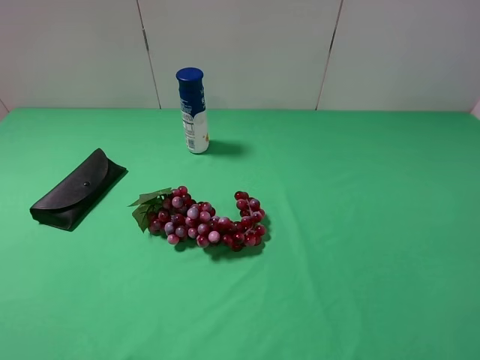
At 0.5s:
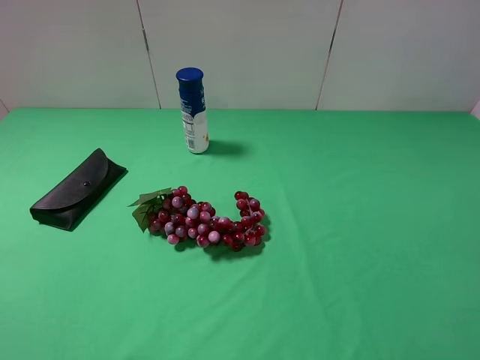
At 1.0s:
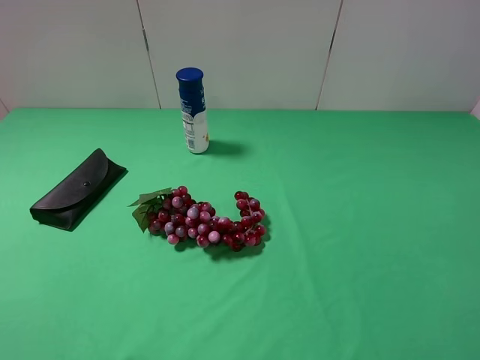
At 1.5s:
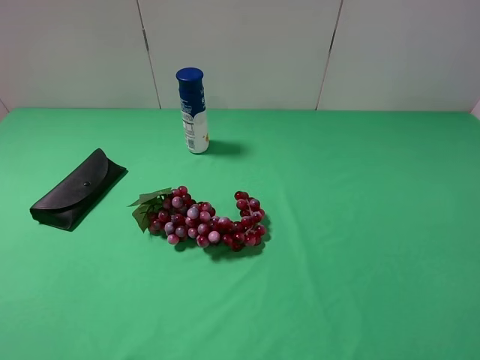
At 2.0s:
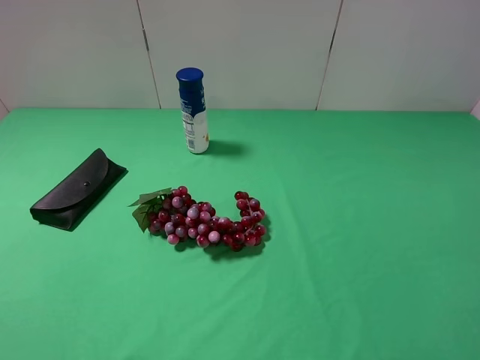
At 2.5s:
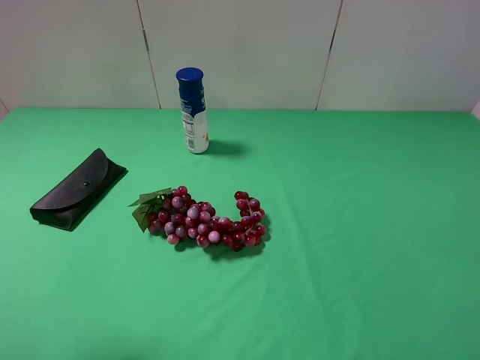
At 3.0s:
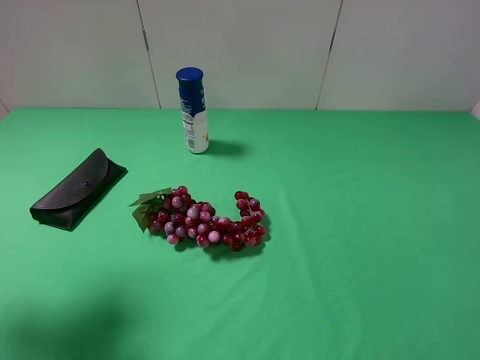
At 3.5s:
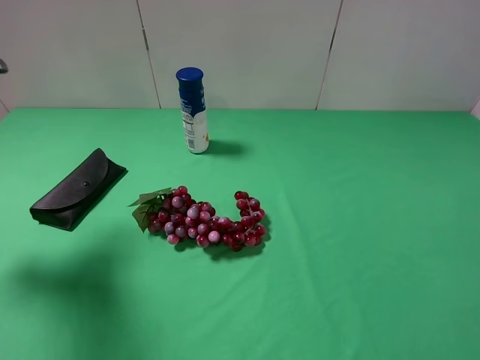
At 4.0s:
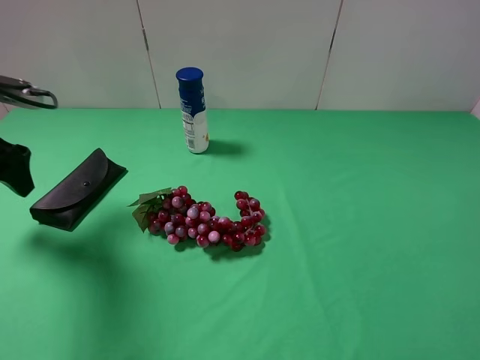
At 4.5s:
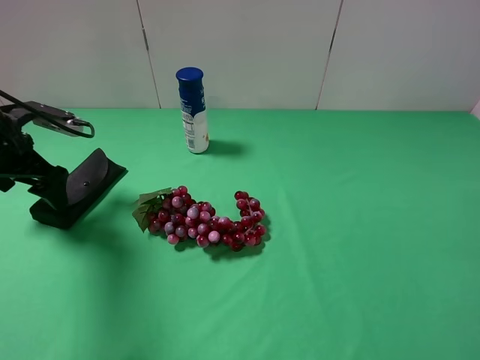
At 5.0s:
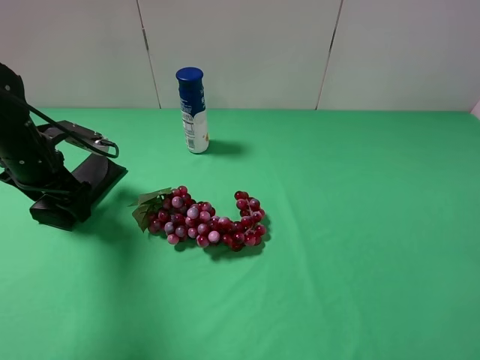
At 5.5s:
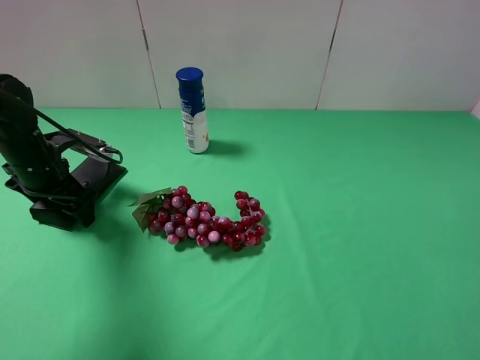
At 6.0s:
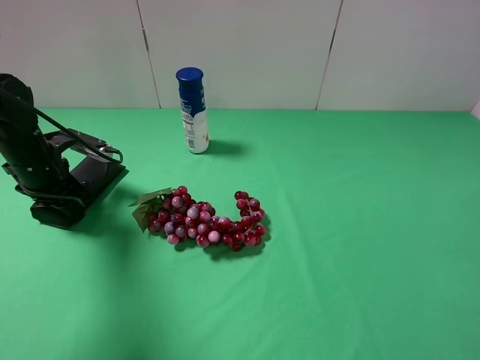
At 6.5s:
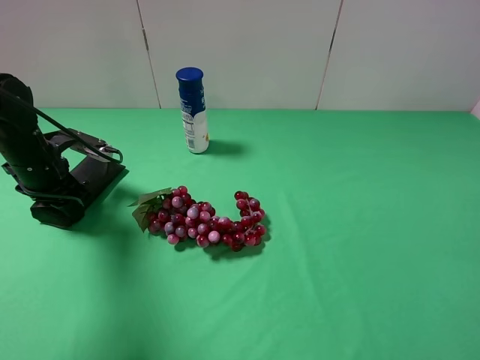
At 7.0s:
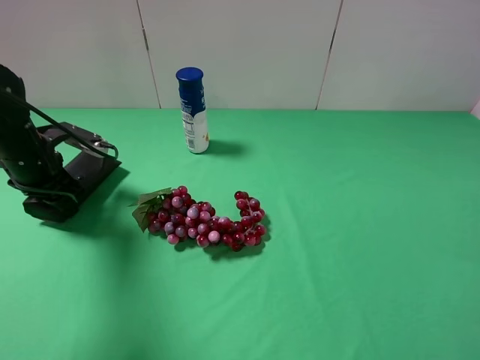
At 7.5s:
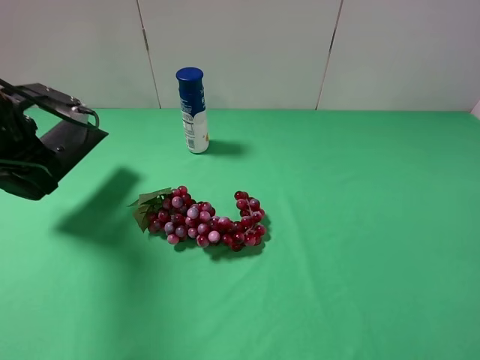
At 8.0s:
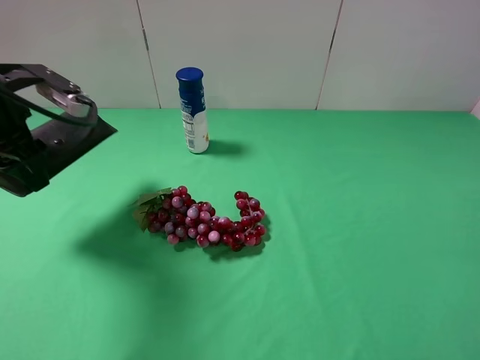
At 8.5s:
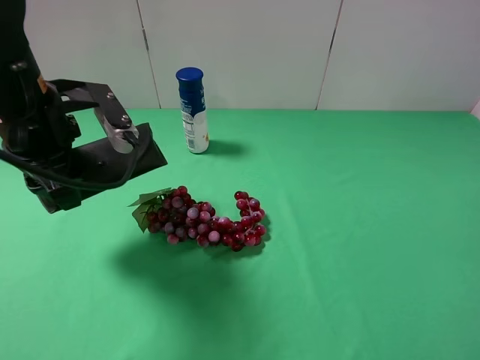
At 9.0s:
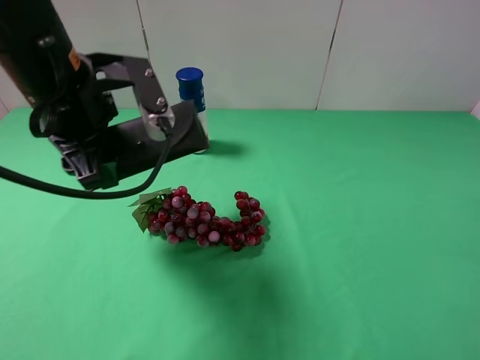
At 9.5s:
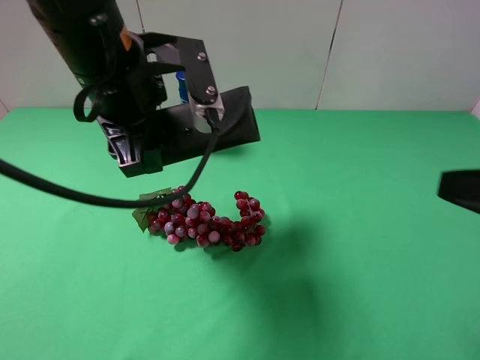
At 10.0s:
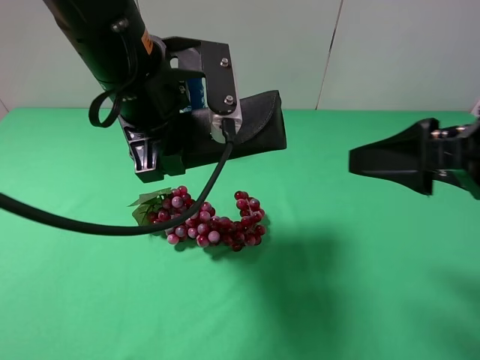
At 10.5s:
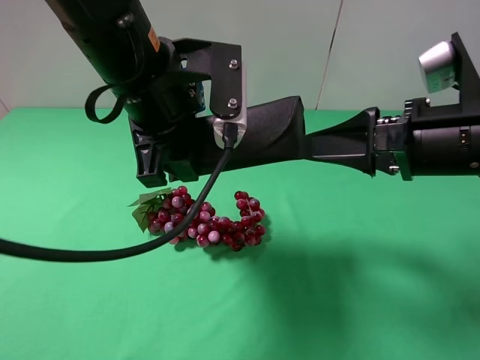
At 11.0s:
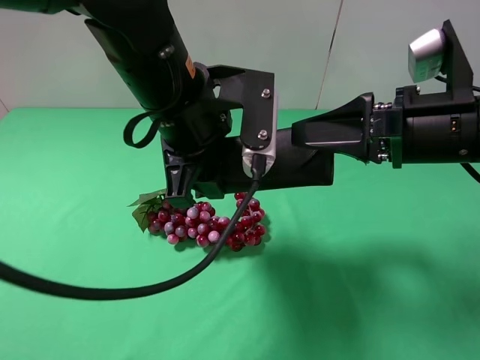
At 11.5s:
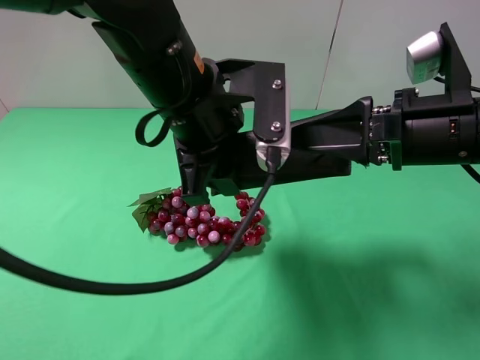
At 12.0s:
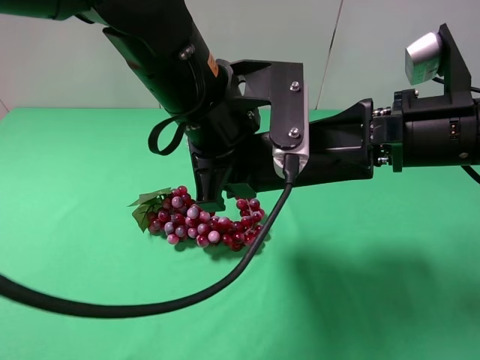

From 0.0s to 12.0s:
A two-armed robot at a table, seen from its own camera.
Task of the whole recording: use the left gripper to pick up the item and transfer it from the left gripper to the right gripper.
Step, from 0.0s to 6.0s: Use the left gripper to grab the eyeglass case on the left side of the table.
From 0.0s to 2.0s: The two grippers keep their place.
From 2.0s to 4.0s: The left gripper shifts some 30 cm forward.
From 4.0s to 6.0s: The left gripper shifts about 10 cm downward, and closes its fingers.
From 6.0s to 8.0s: The left gripper moves upward, about 15 cm.
From 8.0s to 10.0s: The left gripper is displaced to the right by about 20 cm; the right gripper heads forward, covering roughly 15 cm.
From 10.0s to 12.0s: The left gripper moves to the right, some 5 cm. Meanwhile the right gripper shifts approximately 5 cm forward.

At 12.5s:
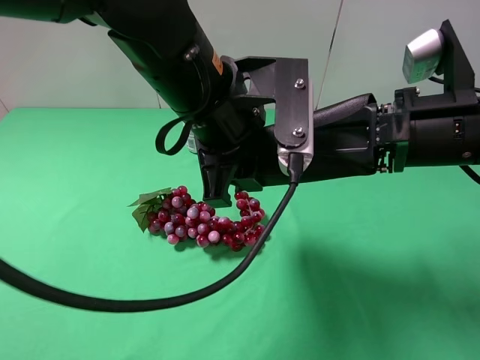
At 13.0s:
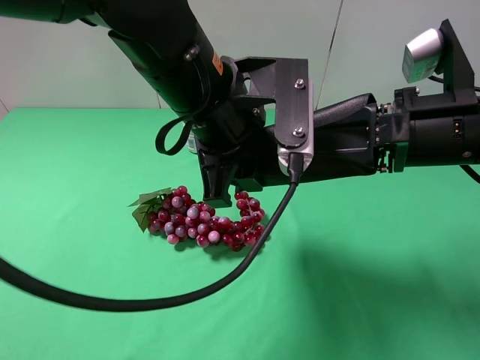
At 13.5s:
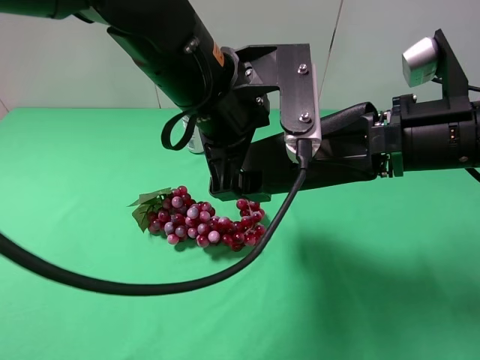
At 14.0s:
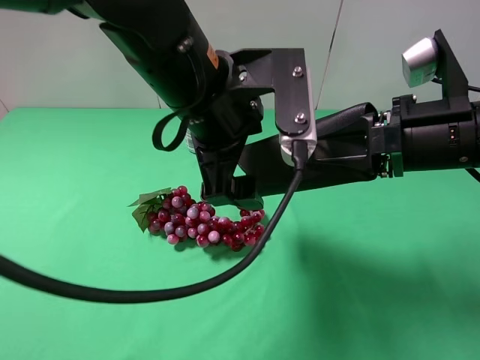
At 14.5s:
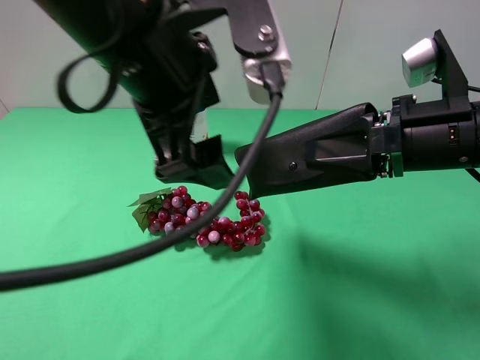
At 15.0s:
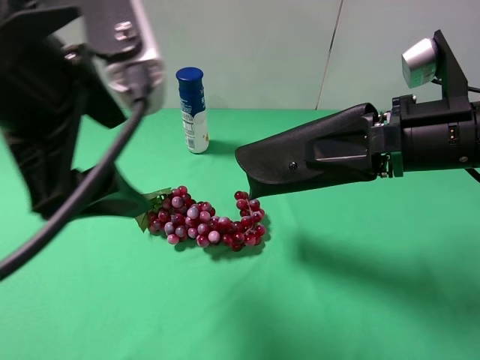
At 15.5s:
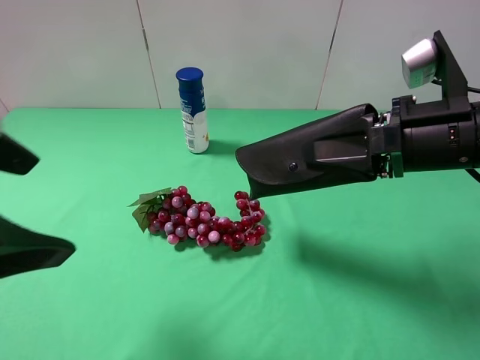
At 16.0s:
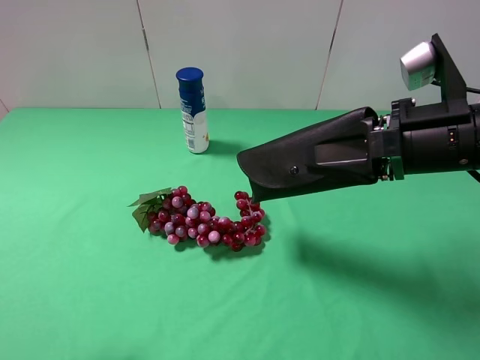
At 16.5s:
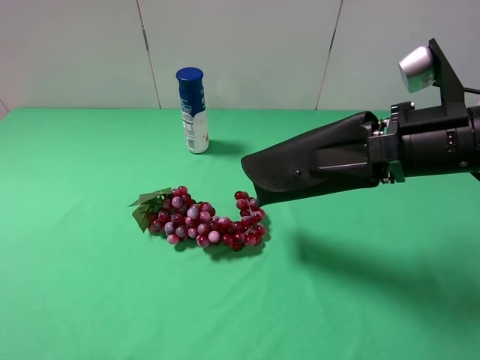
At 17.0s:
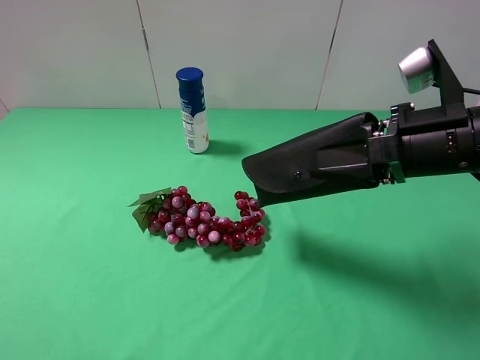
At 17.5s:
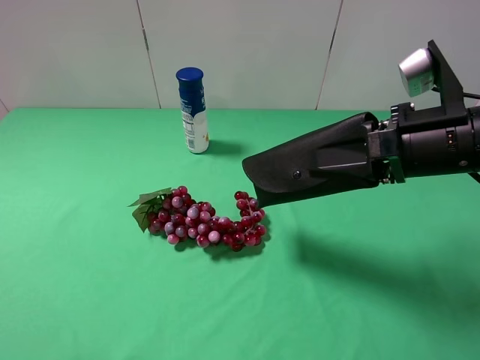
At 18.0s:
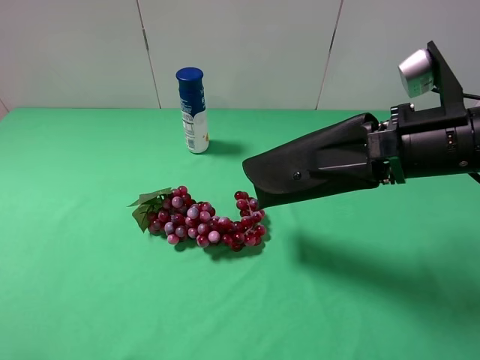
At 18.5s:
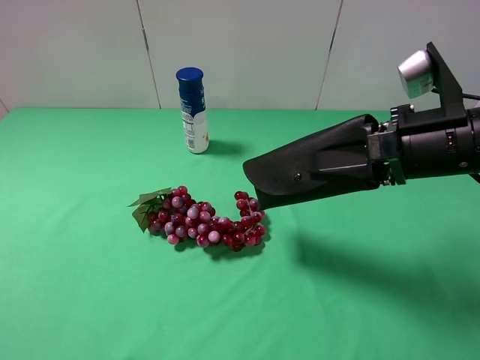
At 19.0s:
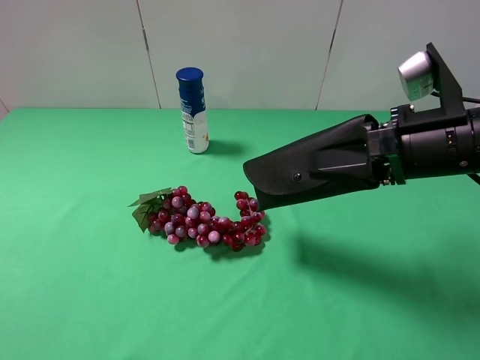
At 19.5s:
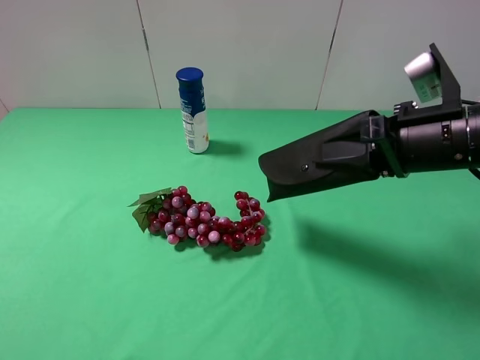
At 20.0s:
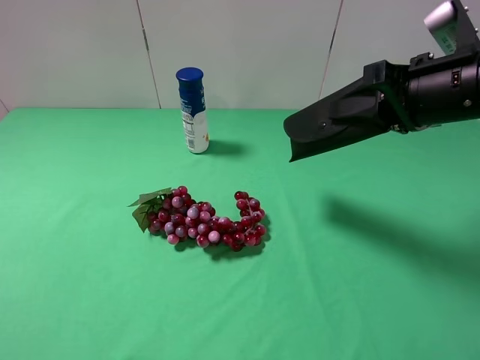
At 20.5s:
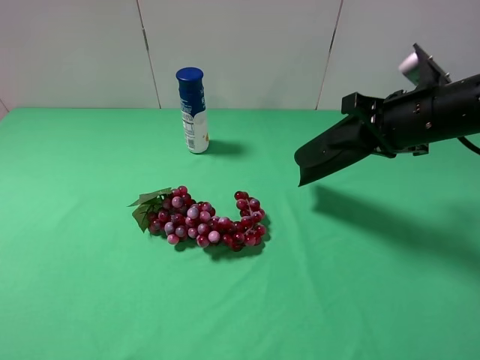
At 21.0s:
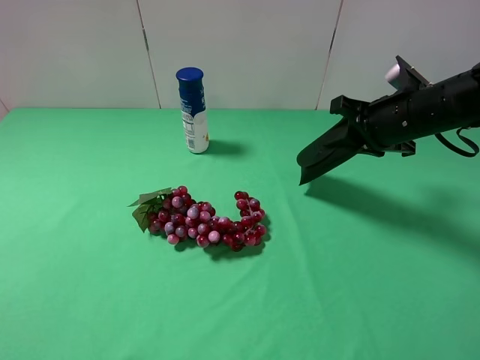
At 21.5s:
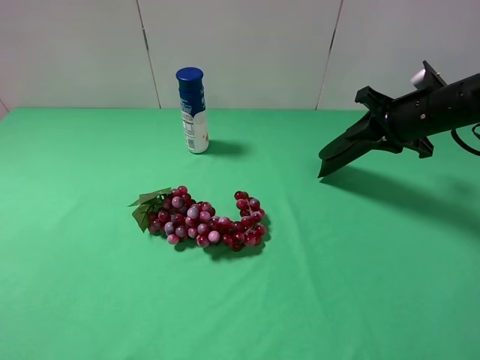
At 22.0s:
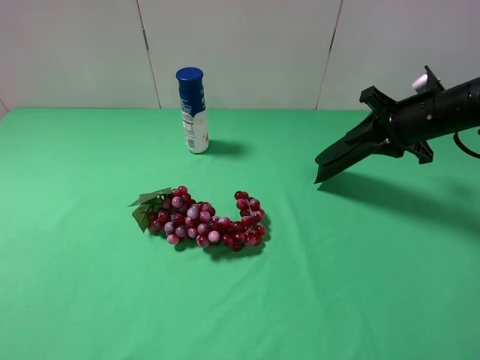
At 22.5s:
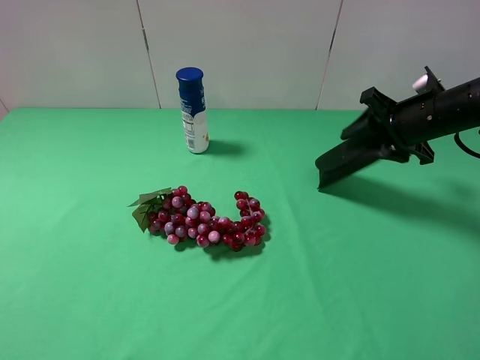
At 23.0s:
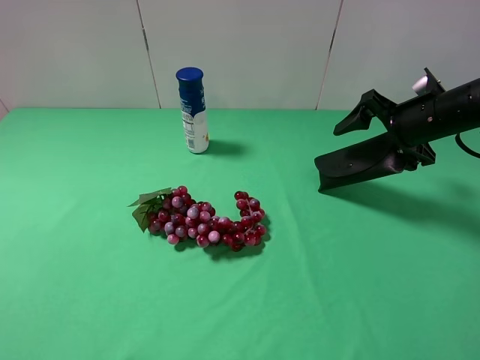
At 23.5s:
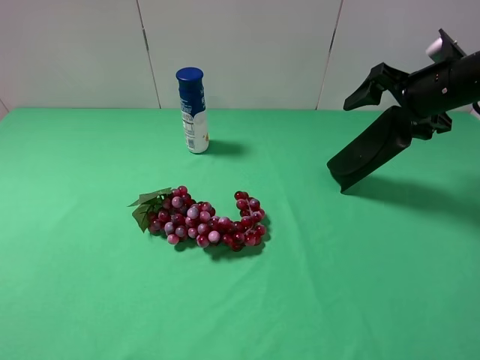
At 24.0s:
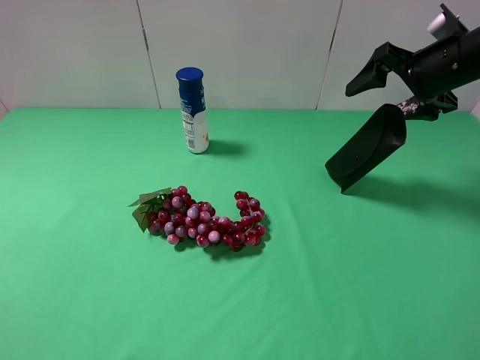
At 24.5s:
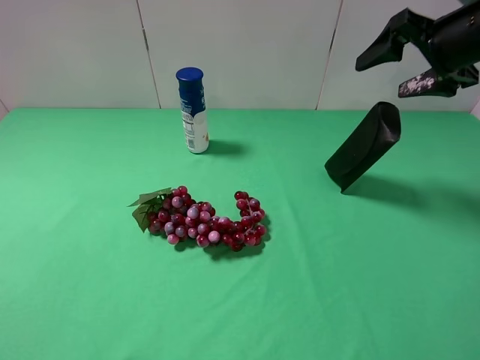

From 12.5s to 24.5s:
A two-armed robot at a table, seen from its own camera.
Task of the whole recording: use the left gripper to pick up the item and transfer it from the left gripper to the right gripper.
From 12.5s to 14.5s: The left gripper moves upward, roughly 5 cm, and opens up.
From 14.5s to 16.5s: The left gripper is displaced to the left and backward by some 30 cm.
From 18.5s to 20.5s: The right gripper shifts roughly 5 cm forward.
From 20.5s to 22.5s: The right gripper moves forward and to the right, roughly 10 cm, and opens.
From 22.5s to 24.5s: The right gripper travels upward by about 10 cm.

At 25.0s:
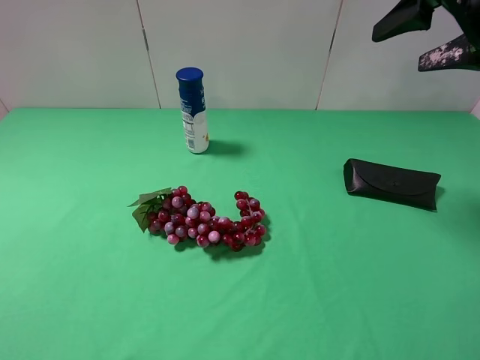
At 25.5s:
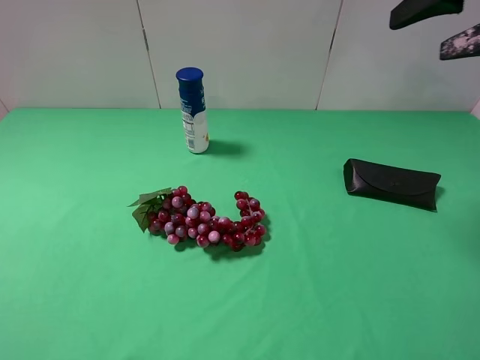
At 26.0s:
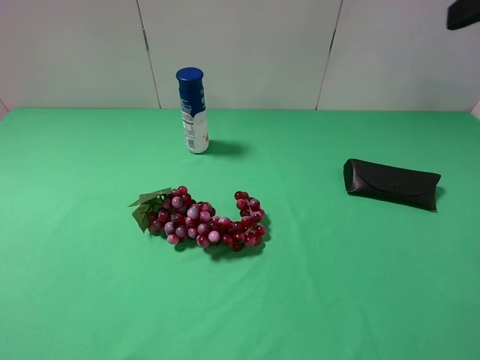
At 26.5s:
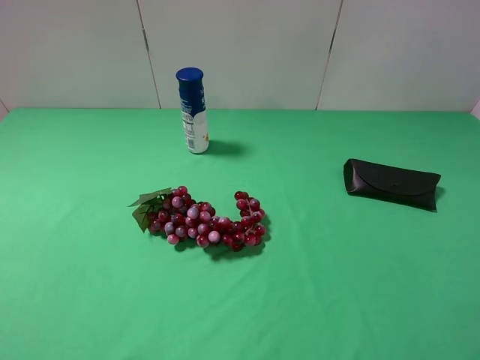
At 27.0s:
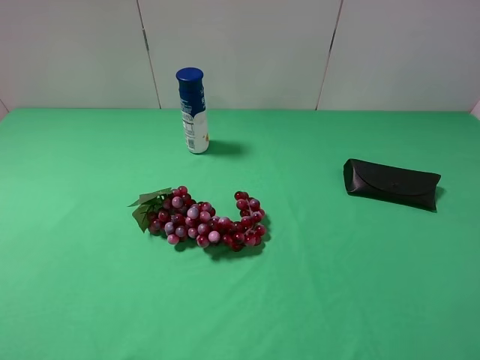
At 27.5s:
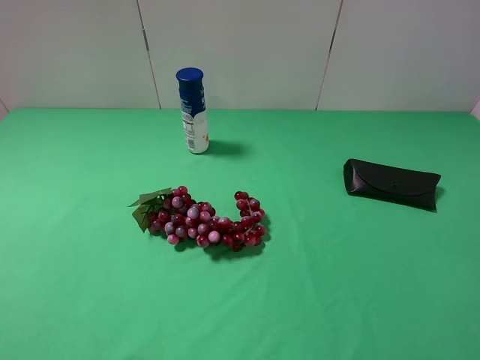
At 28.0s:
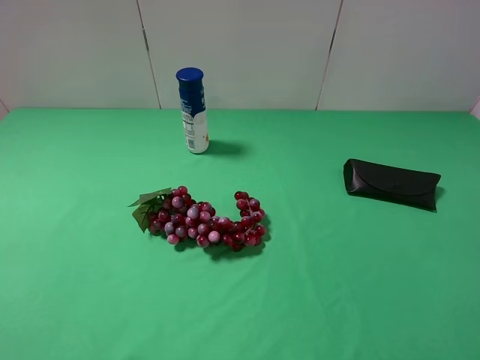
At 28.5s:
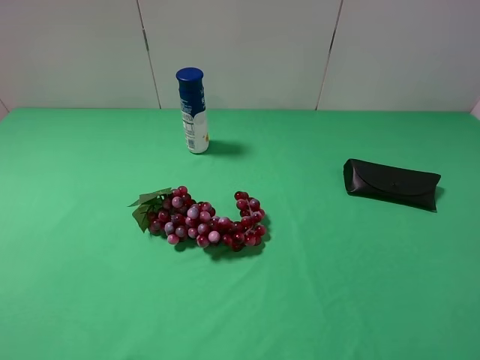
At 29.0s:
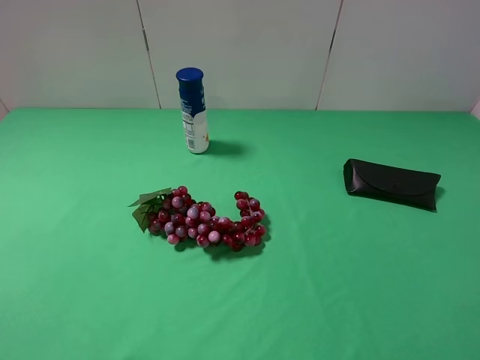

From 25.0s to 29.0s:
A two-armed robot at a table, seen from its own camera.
Task of the whole recording: use the left gripper to pick up the item and transfer it from the left gripper to the right gripper.
From 25.0s to 27.0s: The right gripper is displaced backward by approximately 25 cm.
